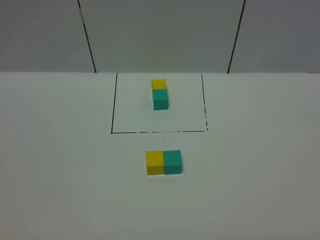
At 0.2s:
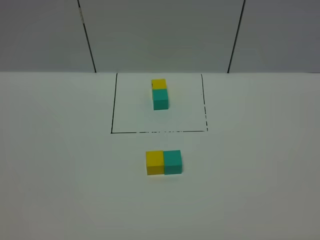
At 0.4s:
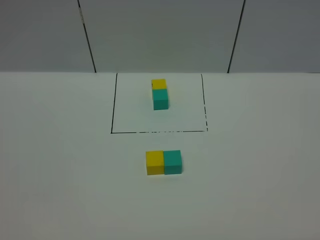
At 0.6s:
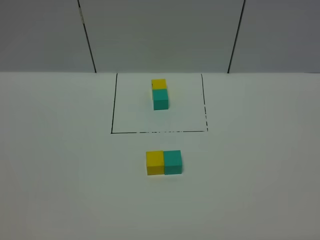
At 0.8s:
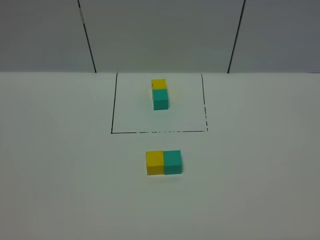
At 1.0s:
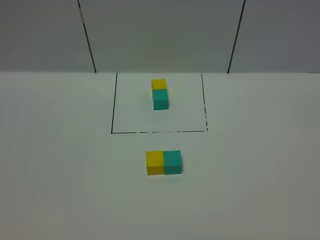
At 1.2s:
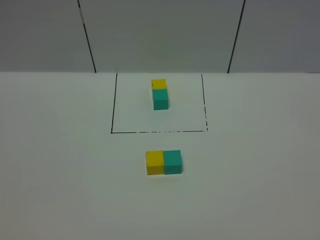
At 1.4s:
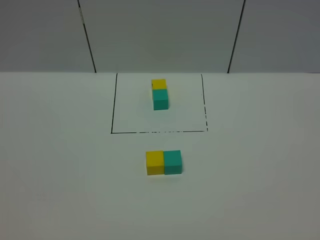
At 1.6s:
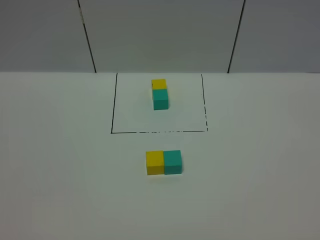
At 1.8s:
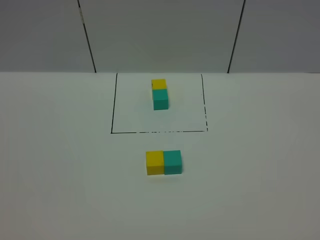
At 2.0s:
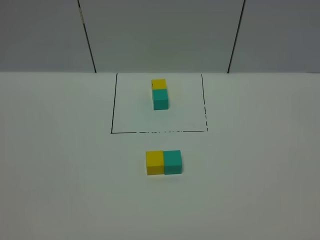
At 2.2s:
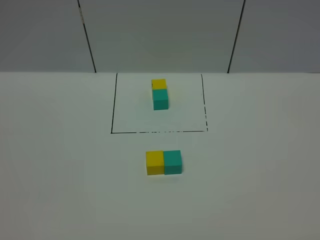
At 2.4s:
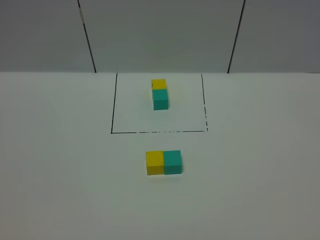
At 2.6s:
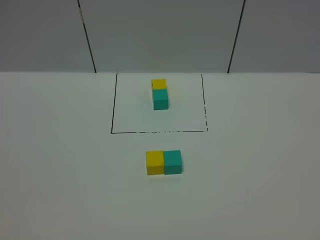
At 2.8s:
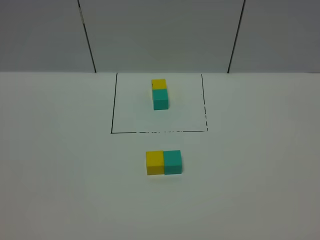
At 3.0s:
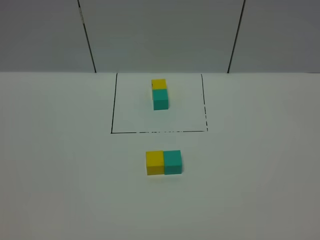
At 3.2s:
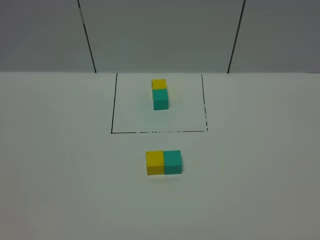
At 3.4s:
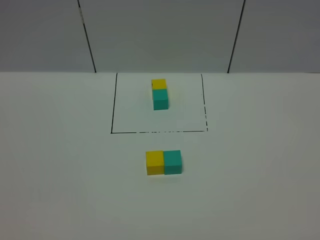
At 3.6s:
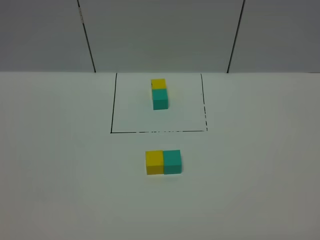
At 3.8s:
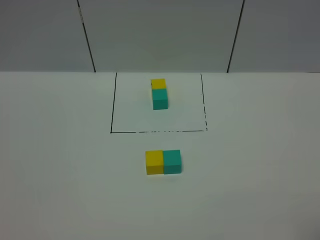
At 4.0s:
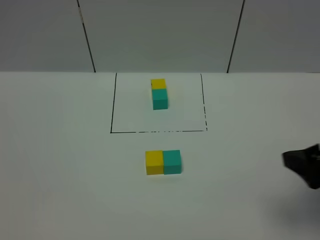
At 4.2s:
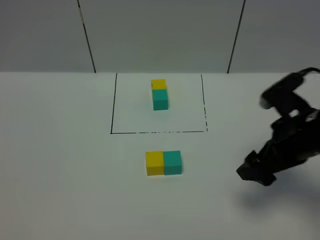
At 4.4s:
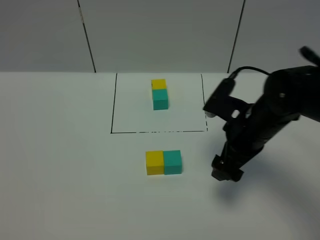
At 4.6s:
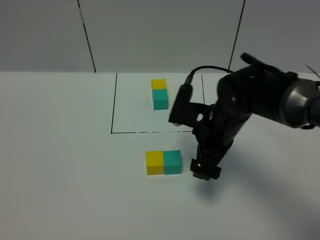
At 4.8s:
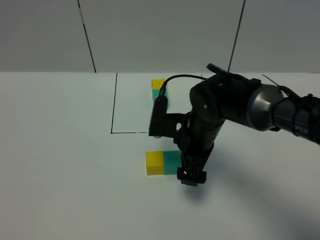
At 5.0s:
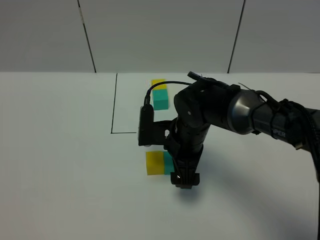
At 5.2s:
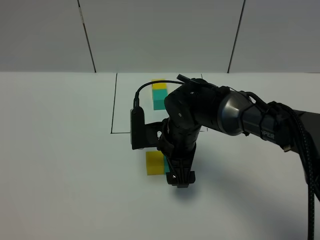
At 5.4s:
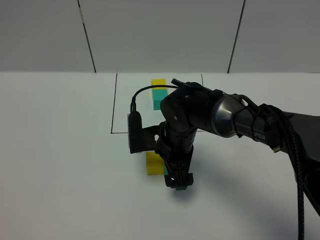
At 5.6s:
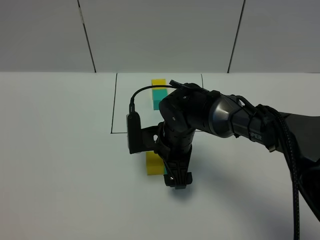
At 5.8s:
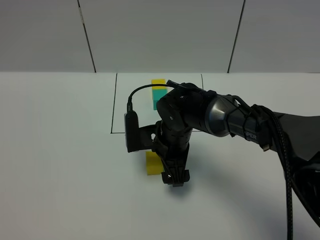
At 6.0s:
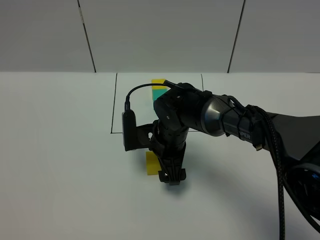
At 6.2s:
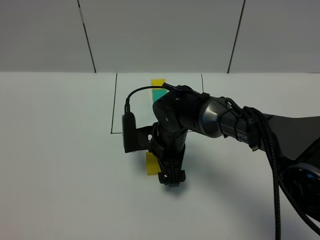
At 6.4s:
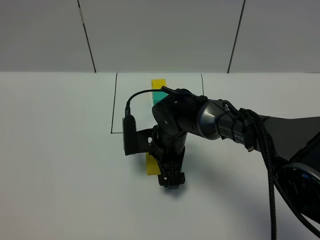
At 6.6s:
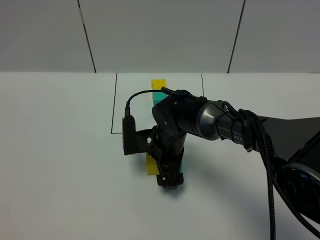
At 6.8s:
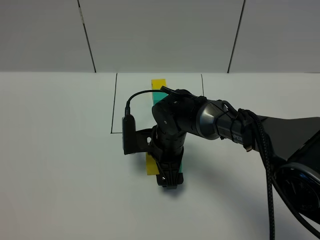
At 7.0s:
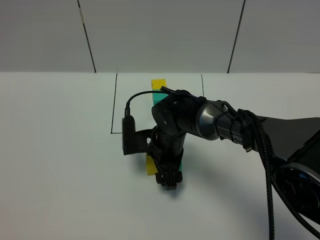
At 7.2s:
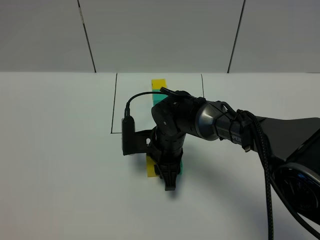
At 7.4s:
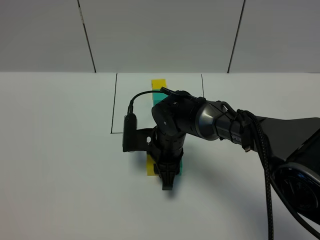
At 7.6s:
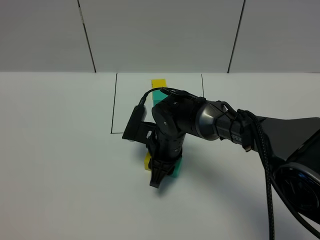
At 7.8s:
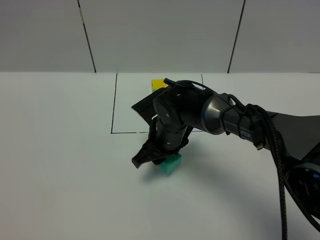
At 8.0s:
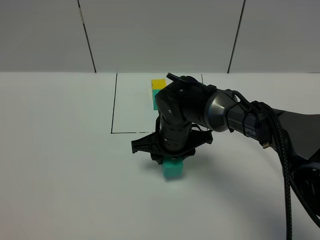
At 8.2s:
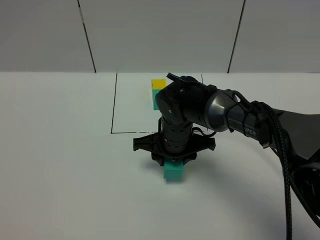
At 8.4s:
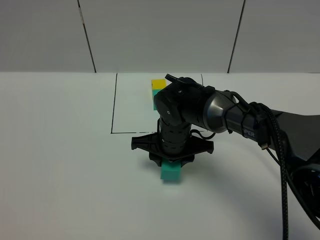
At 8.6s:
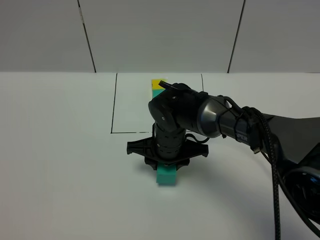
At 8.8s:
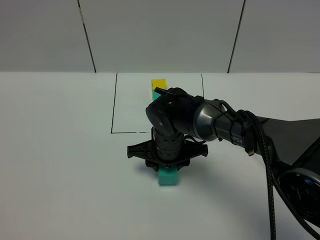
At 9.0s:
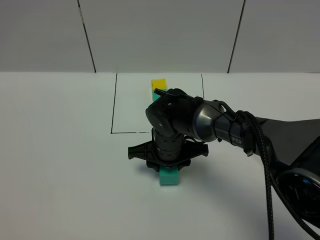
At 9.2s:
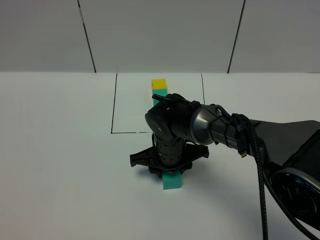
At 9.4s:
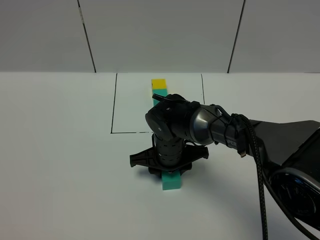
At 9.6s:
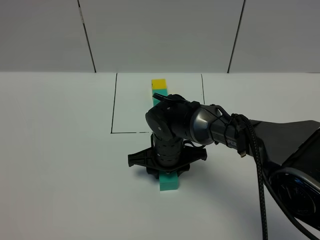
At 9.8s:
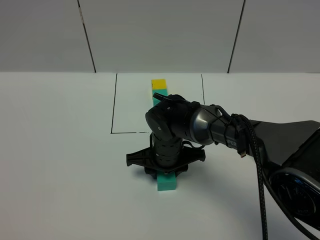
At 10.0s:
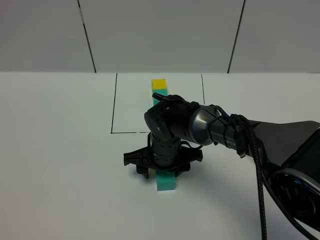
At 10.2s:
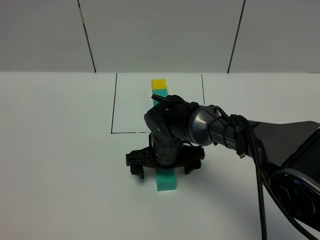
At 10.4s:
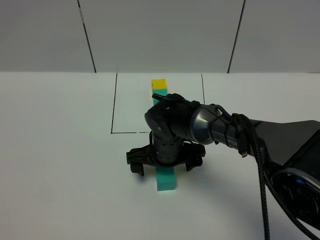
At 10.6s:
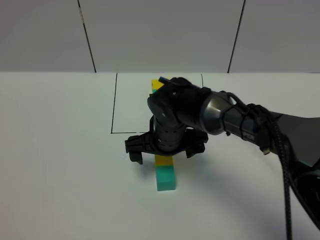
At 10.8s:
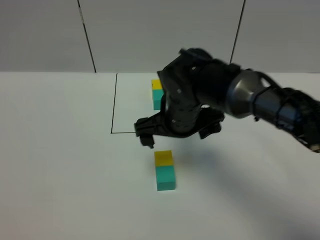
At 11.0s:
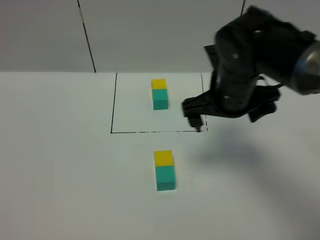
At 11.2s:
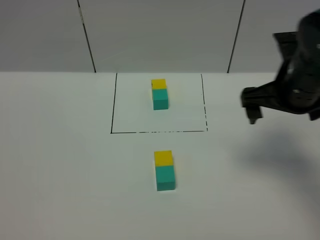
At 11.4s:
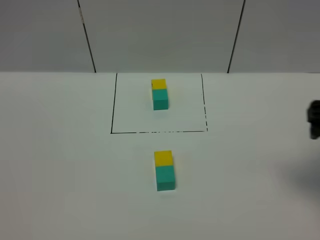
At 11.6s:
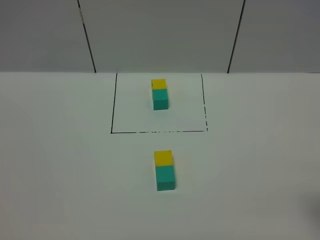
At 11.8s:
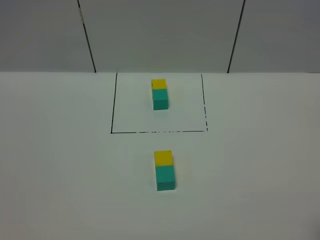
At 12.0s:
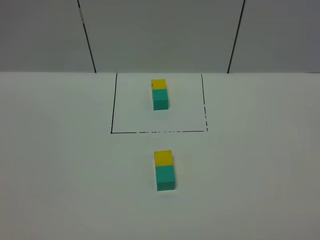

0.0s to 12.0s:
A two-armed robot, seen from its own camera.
Task of the whole recording: According to the building block template in front, assemble the scattered blocks together.
Step, 0.0s to 10.4s: Adjust the pose of the building blocks.
1.6s to 3.0s: Neither gripper changes place.
3.0s to 4.4s: The right gripper shifts about 35 cm forward and to the left.
4.4s to 6.0s: The right gripper heads to the left and downward, covering roughly 15 cm.
6.0s to 7.6s: The right gripper closes.
9.0s to 10.4s: The right gripper opens its fingers.
10.4s to 12.0s: The right gripper shifts some 50 cm to the right, backward and upward.

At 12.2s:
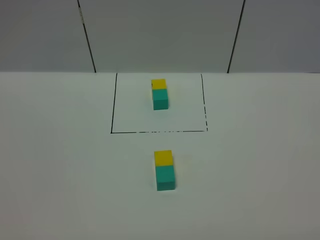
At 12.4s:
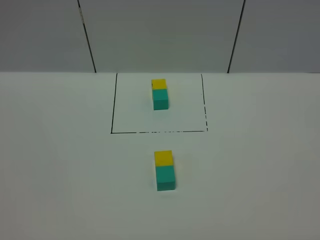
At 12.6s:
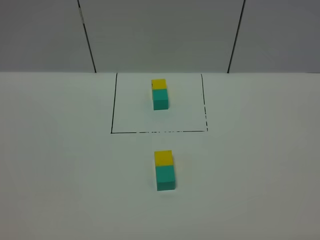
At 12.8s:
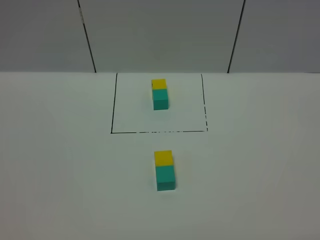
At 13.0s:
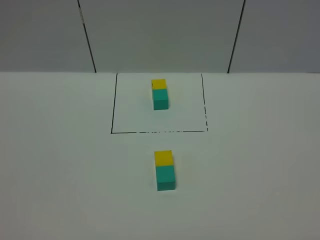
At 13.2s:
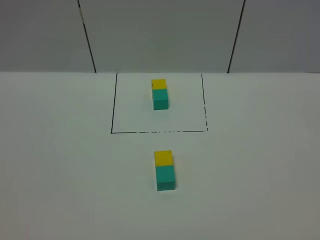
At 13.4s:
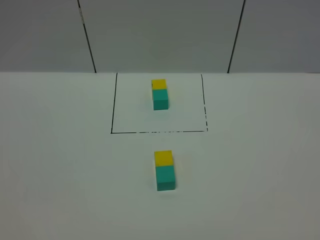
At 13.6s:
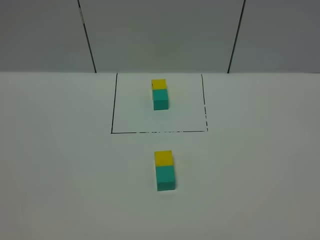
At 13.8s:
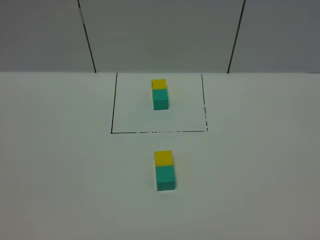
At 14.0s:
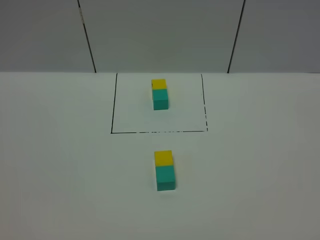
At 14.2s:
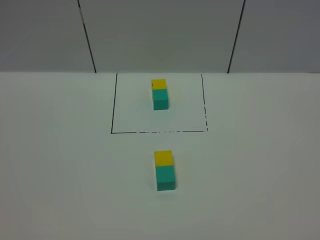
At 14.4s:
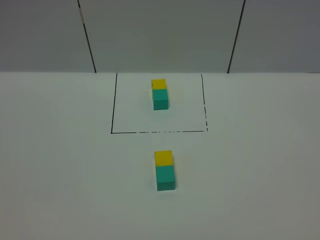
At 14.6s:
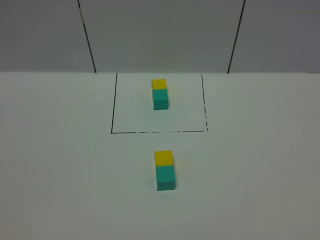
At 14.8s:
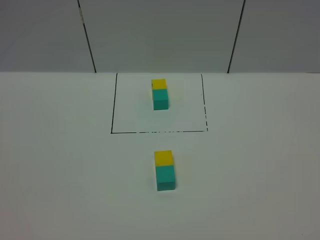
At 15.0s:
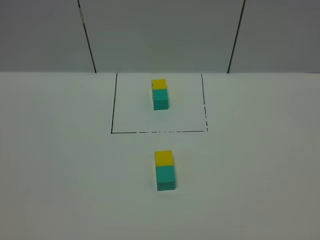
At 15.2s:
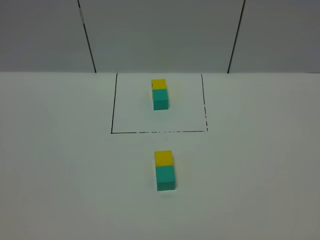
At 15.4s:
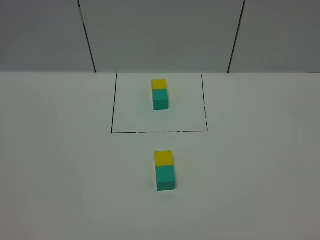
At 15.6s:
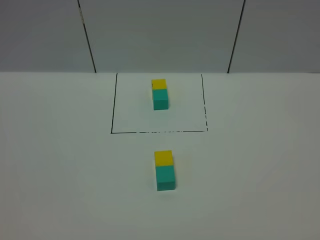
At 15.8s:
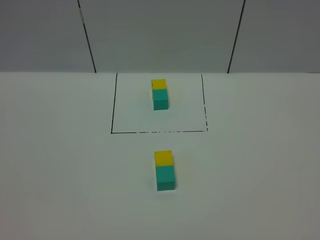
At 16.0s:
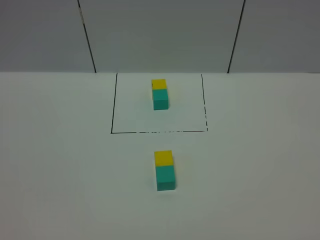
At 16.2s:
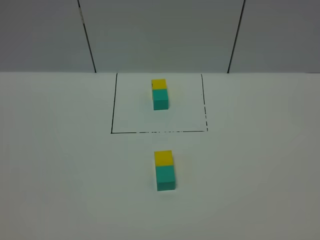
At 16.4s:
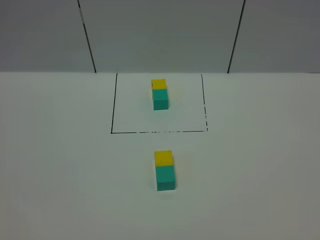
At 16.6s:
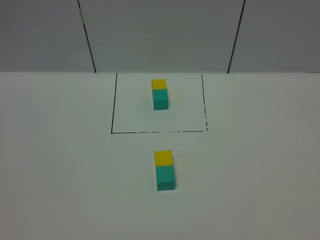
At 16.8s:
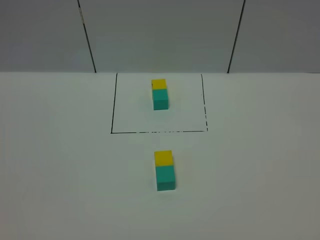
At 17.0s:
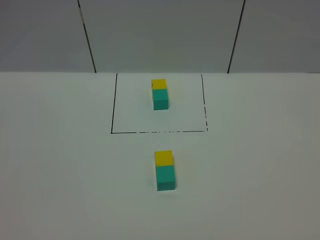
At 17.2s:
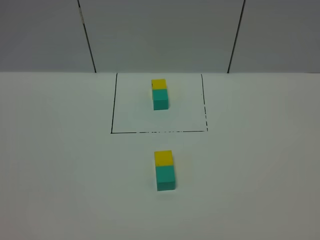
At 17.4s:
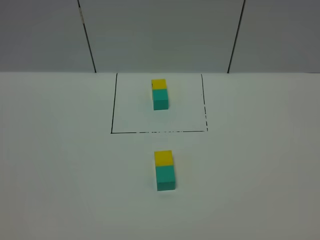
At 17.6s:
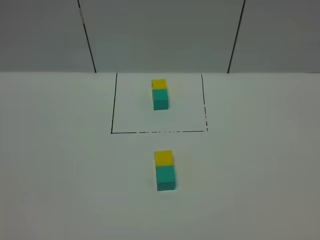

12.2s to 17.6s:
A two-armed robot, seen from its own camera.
Task of the whole recording: According to the building block template in front, assemble the scattered blocks together.
13.6s to 15.0s: Both grippers stay about where they are.
16.2s to 17.6s: The two grippers keep their place.
